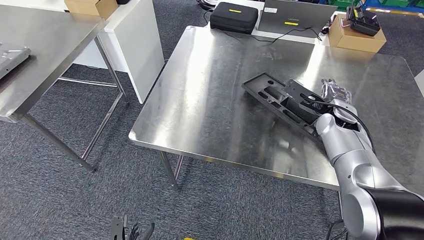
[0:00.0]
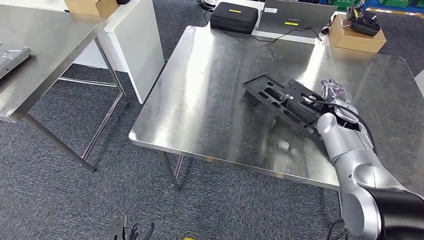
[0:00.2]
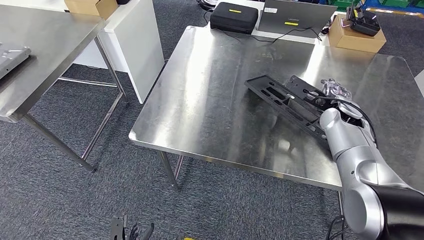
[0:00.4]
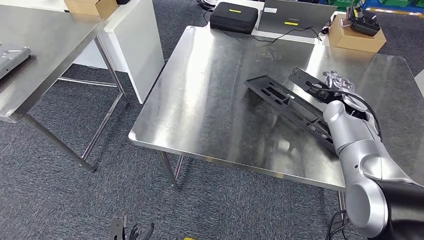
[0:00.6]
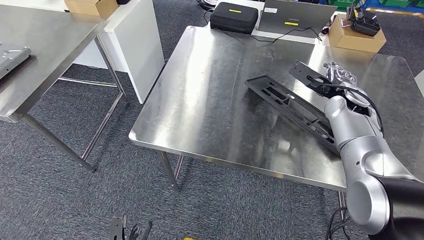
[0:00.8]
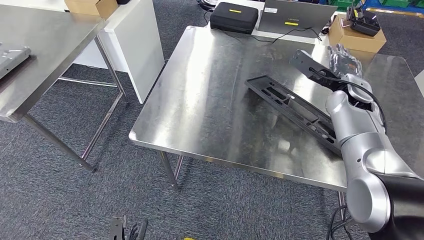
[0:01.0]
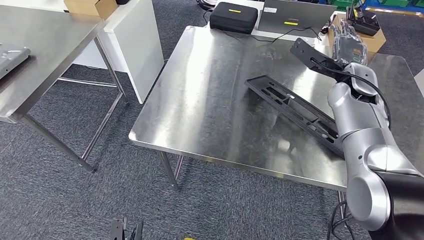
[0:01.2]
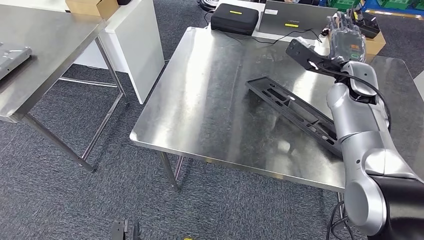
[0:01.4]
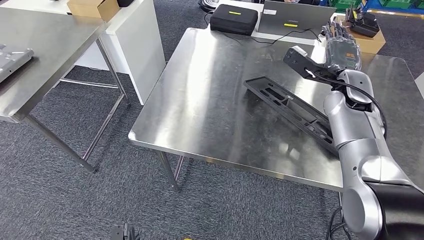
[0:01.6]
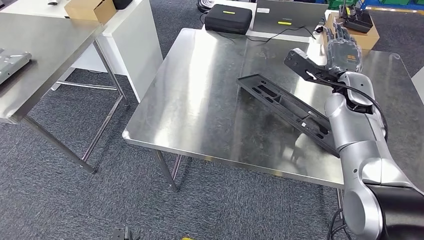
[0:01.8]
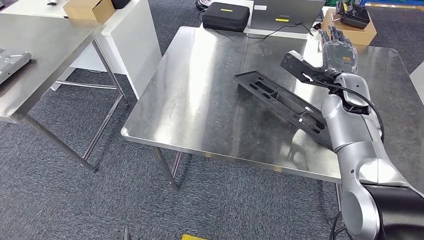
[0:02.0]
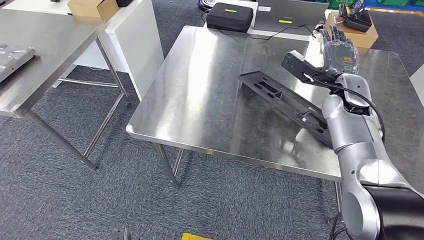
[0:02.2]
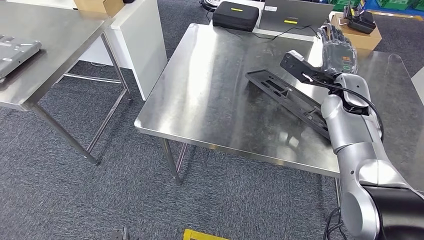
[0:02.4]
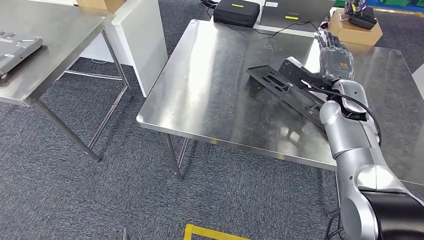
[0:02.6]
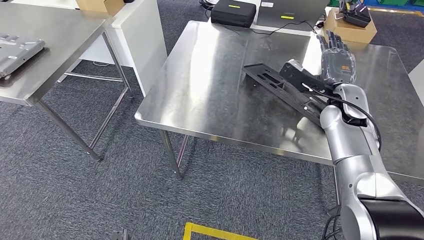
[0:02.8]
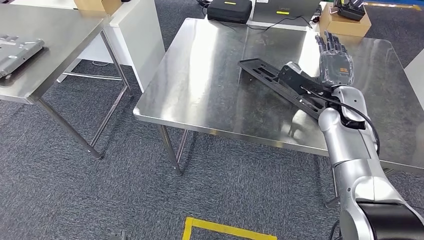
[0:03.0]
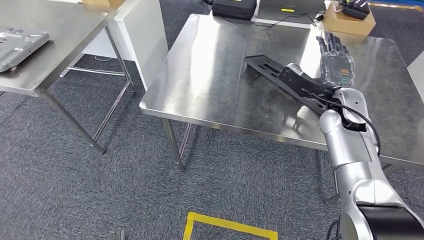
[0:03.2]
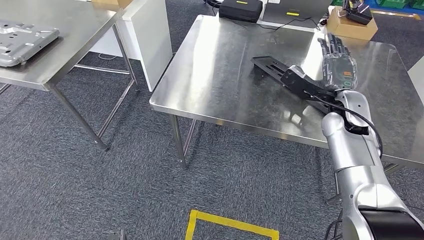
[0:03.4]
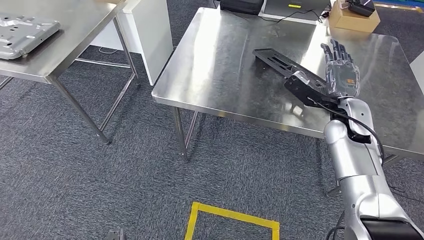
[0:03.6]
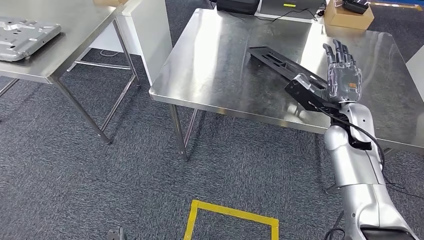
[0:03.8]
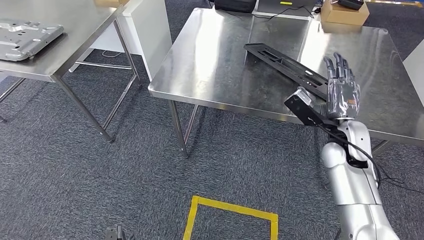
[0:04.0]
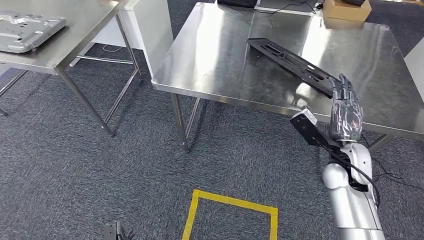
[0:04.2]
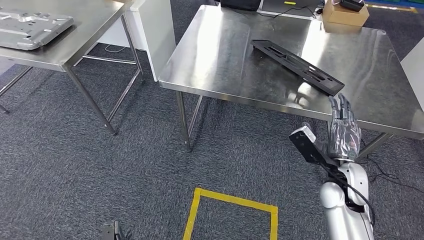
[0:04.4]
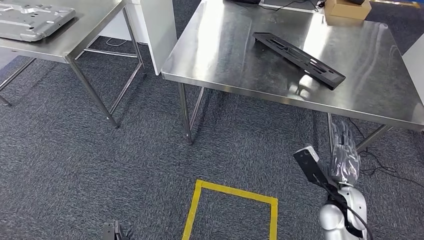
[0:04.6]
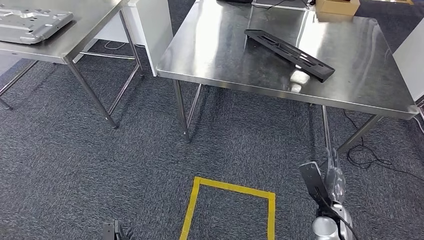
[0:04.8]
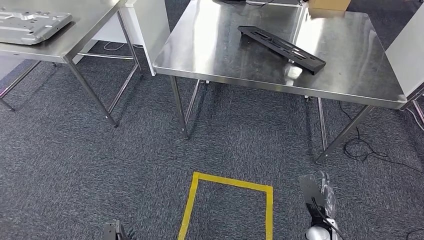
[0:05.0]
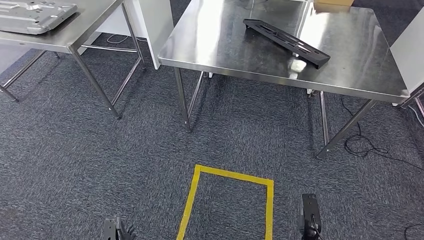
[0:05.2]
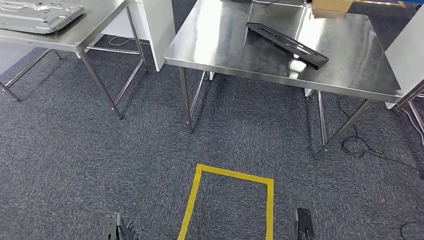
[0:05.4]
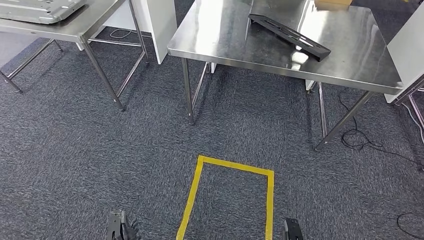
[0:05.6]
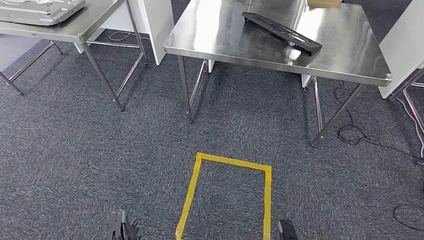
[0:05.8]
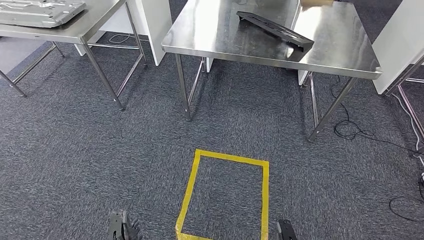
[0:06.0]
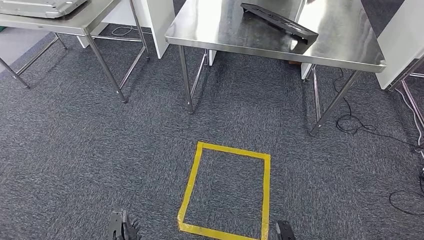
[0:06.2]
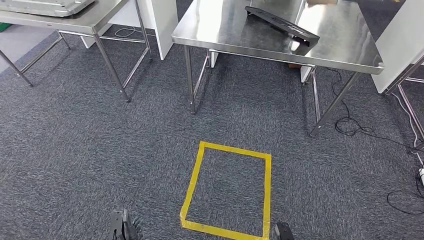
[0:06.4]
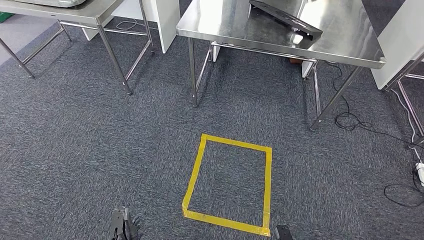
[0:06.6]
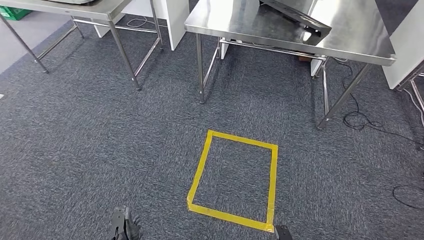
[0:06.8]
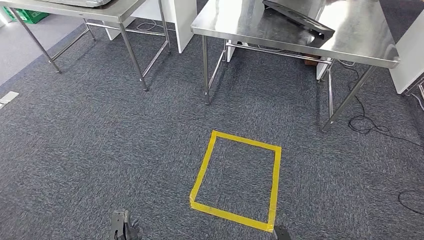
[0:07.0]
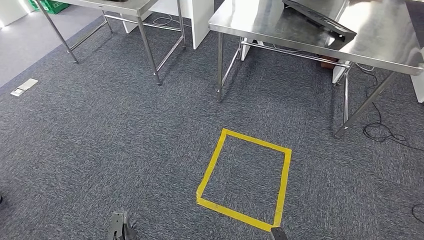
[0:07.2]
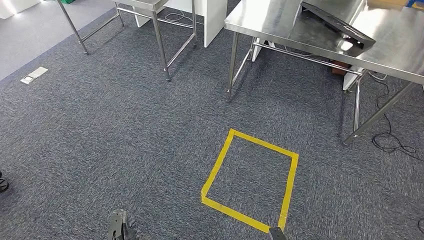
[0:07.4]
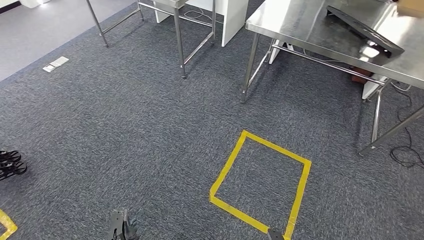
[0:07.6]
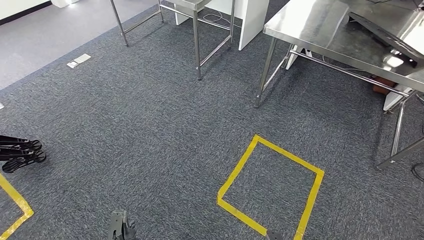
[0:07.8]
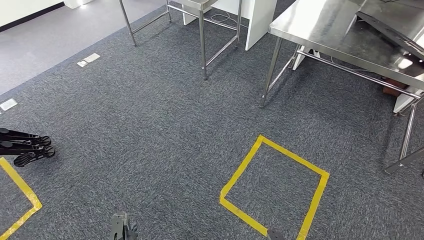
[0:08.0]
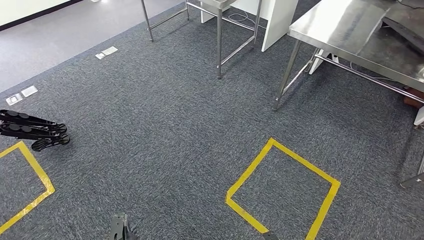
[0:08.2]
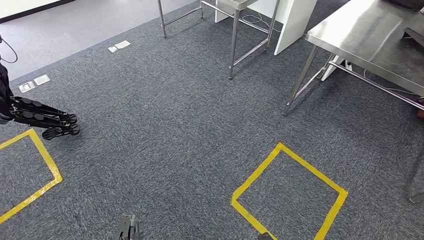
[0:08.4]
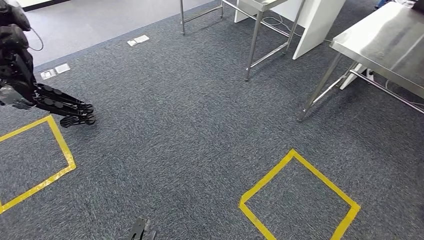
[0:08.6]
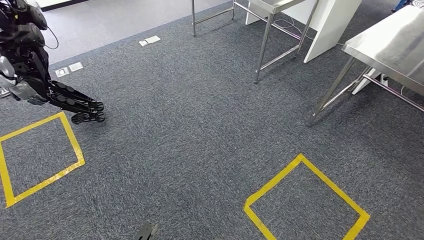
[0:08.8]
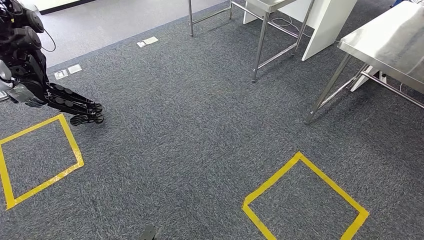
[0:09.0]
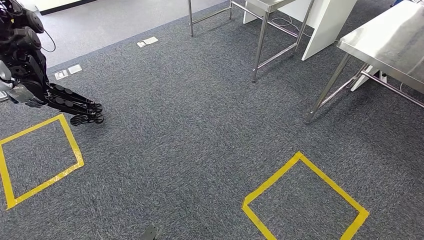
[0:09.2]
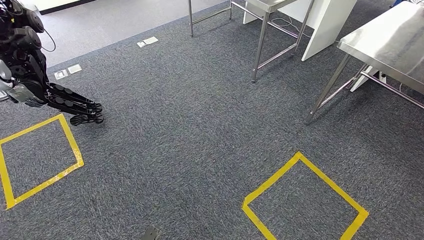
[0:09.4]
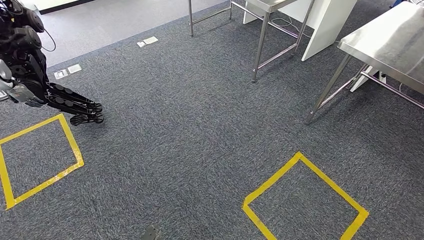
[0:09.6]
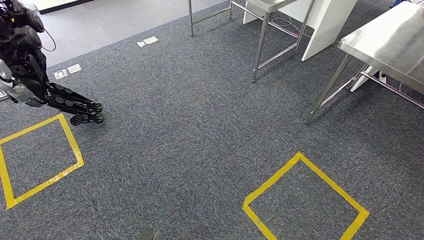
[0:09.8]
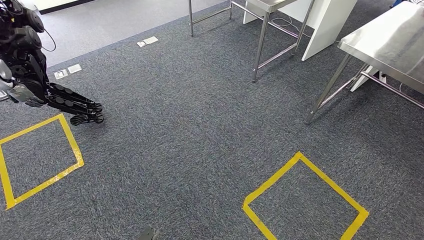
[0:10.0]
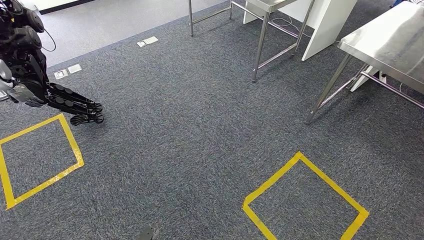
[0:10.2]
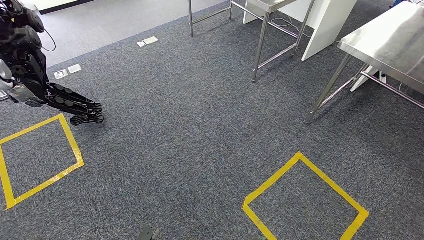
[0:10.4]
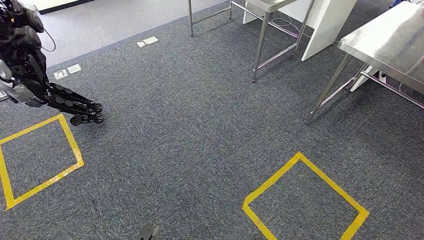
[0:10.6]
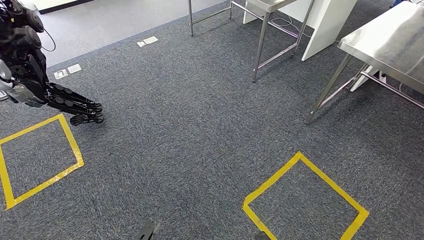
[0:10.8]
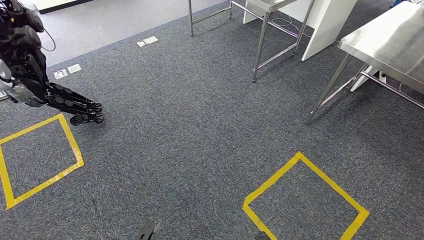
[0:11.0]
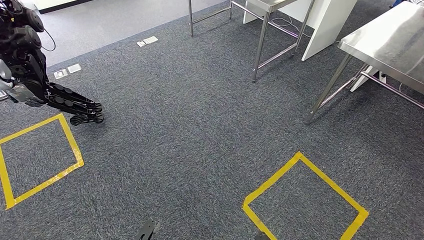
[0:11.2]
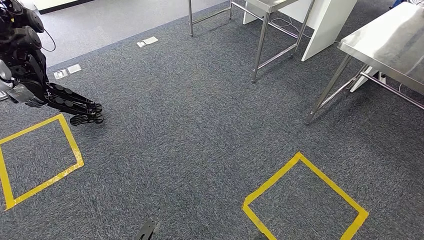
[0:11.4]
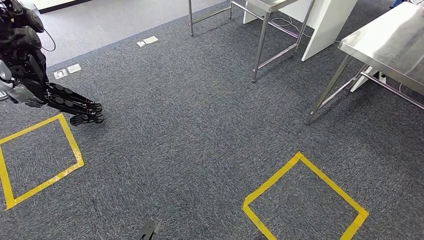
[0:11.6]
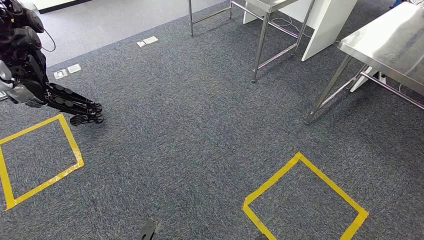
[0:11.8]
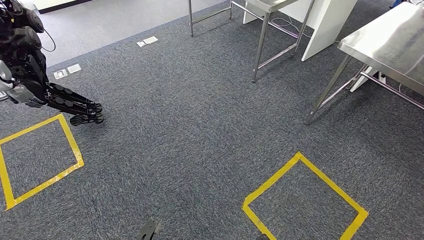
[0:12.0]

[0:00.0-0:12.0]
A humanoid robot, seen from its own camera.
Step, 0:00.0 to 0:03.4: Insert the large material into the corresponding slot on the workbench.
0:00.0 to 0:01.6: The right hand goes about 10 cm upward.

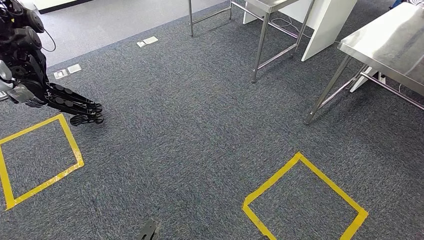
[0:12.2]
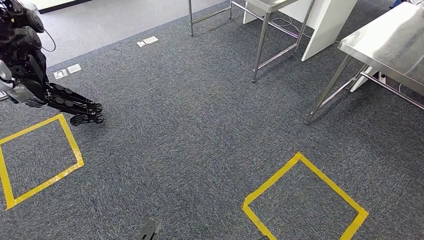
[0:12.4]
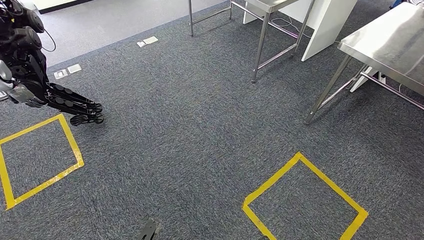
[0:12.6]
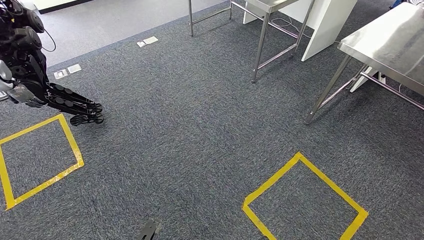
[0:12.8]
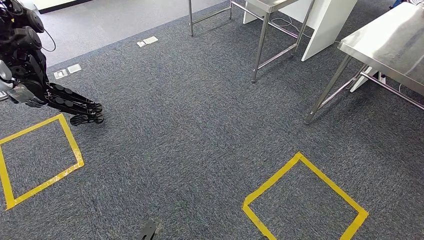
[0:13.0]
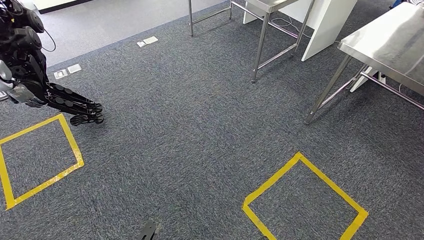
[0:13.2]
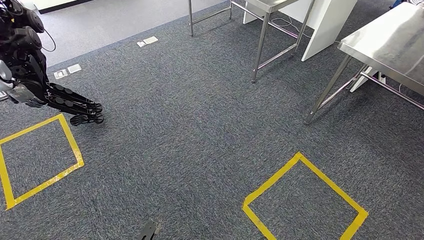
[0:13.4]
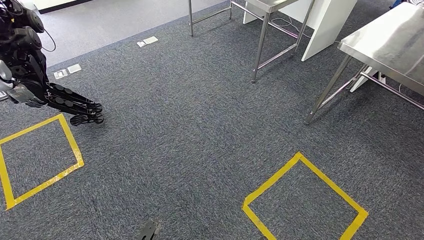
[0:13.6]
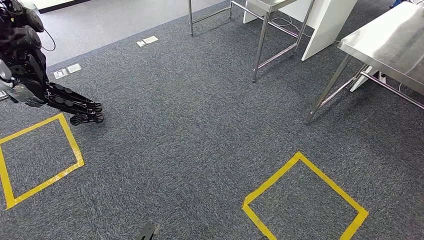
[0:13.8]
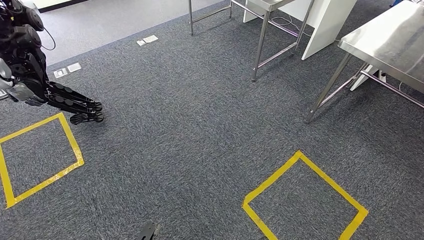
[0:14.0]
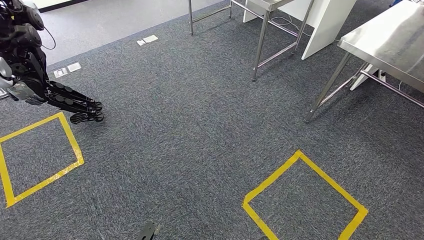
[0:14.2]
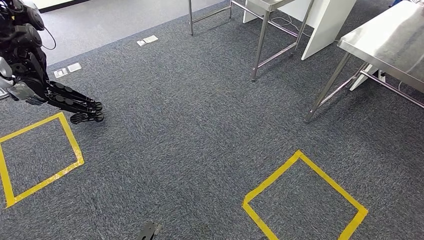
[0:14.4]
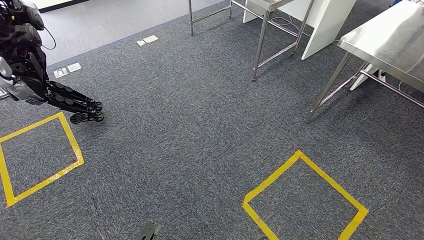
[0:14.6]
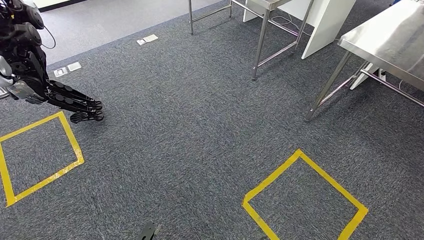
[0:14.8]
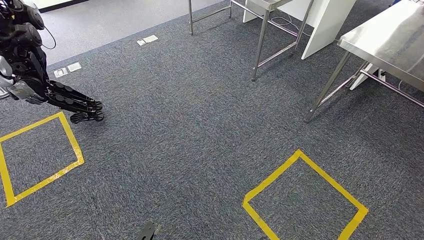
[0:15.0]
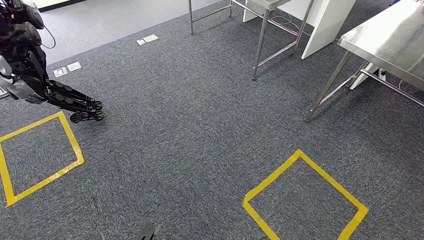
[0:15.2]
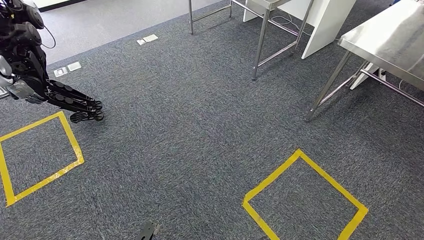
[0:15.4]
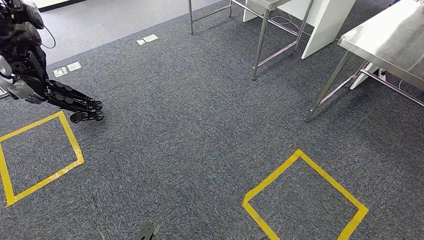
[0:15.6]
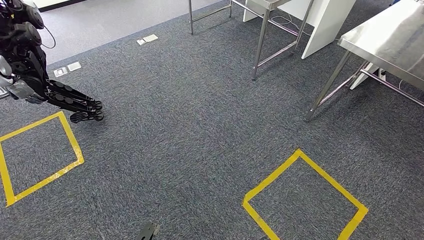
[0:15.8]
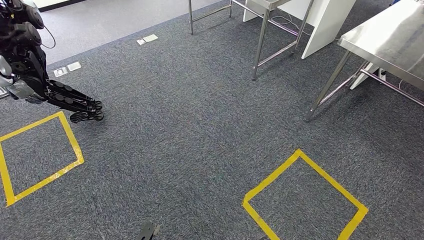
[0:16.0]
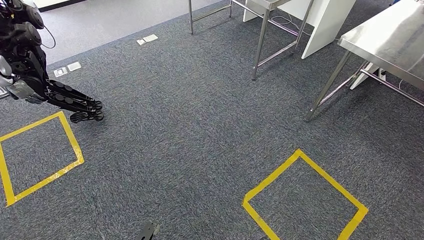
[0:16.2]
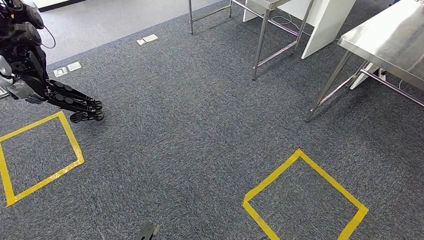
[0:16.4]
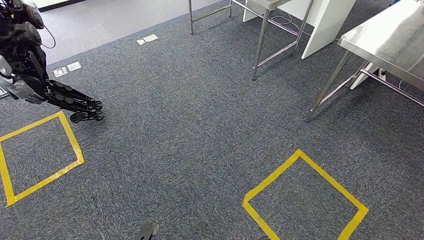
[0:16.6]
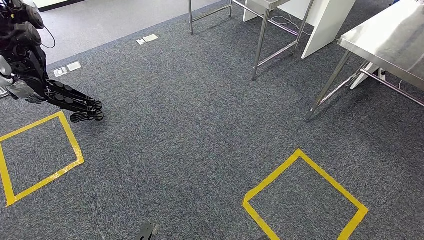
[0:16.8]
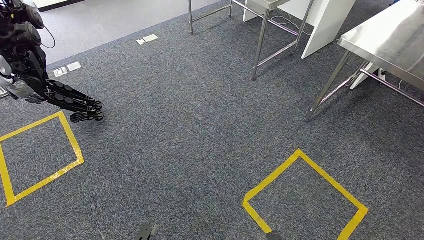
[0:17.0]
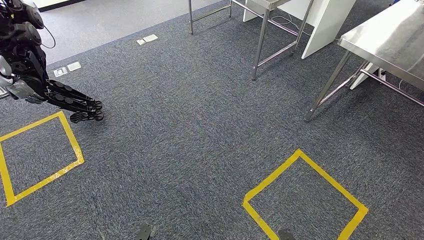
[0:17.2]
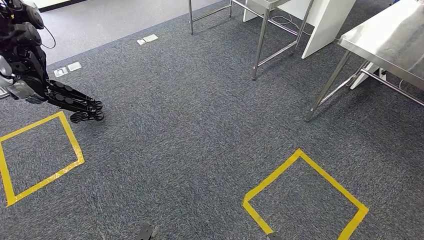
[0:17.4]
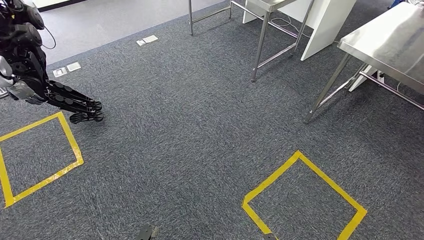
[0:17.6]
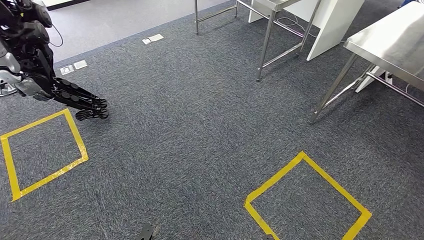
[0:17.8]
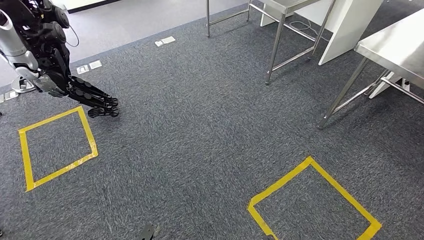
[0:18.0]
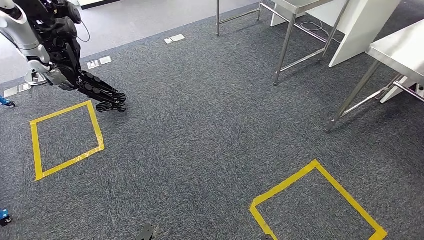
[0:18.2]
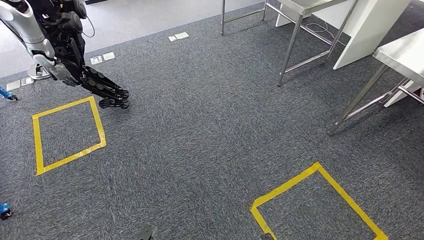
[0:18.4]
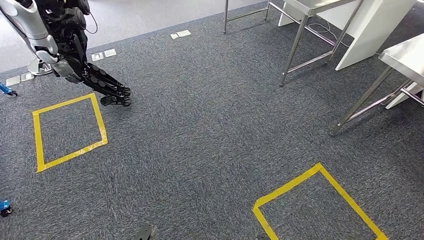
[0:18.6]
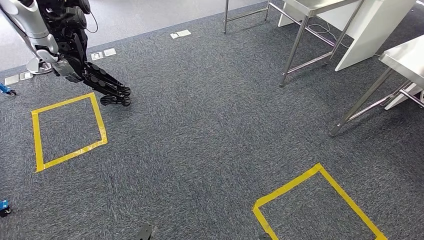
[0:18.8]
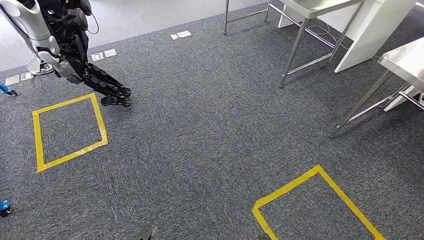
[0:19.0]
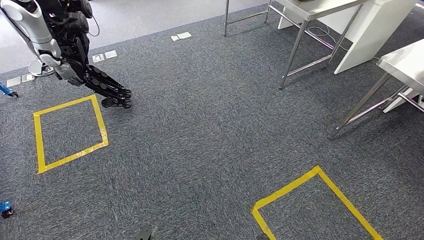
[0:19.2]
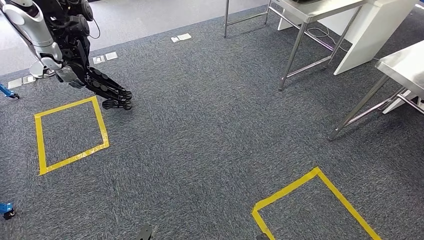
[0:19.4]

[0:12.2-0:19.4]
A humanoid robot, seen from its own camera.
0:12.2 to 0:16.6: Both hands stay put.
